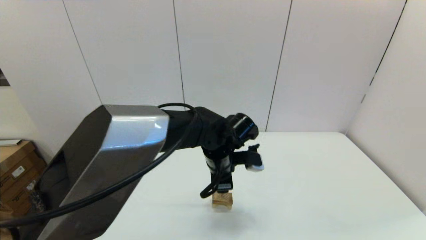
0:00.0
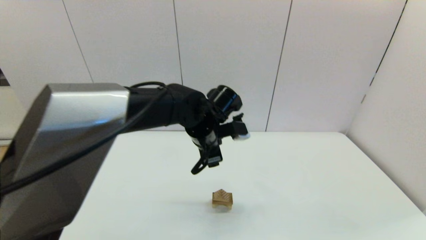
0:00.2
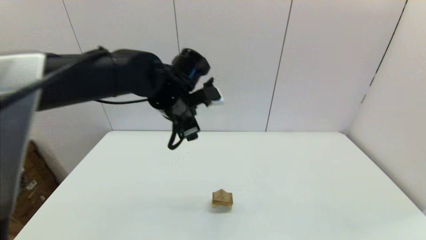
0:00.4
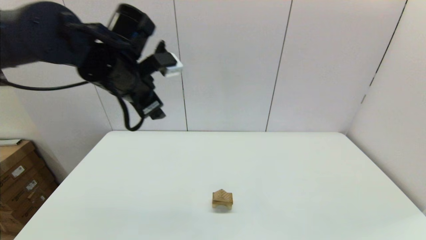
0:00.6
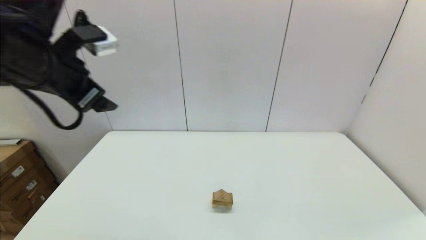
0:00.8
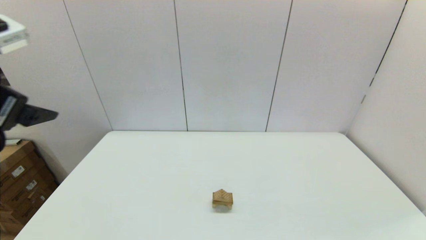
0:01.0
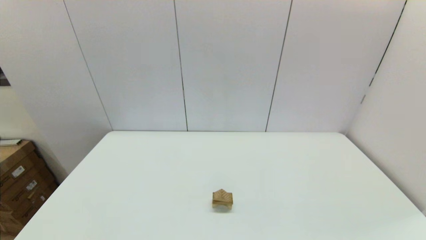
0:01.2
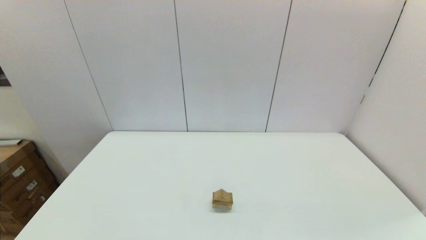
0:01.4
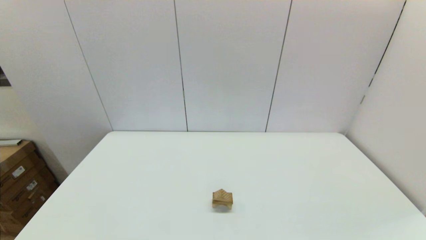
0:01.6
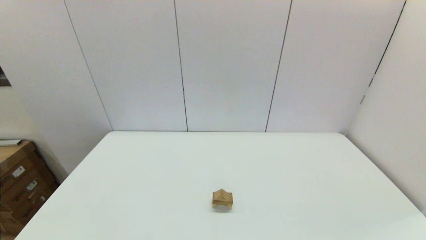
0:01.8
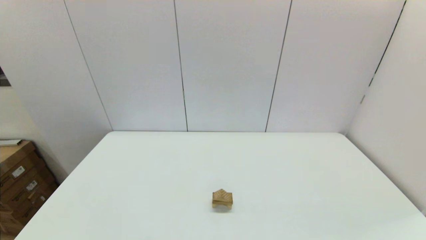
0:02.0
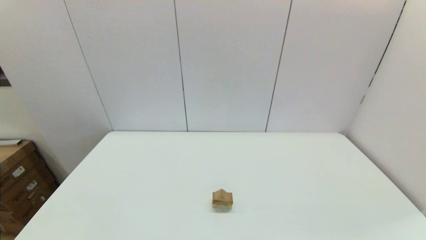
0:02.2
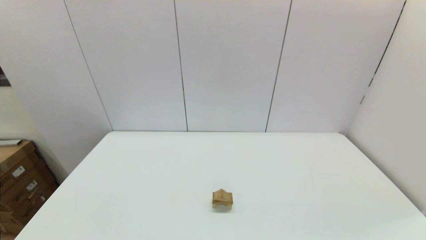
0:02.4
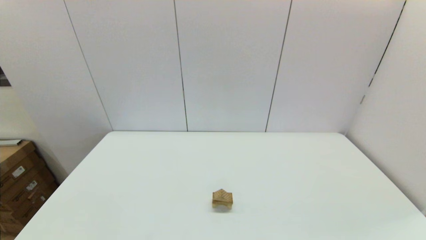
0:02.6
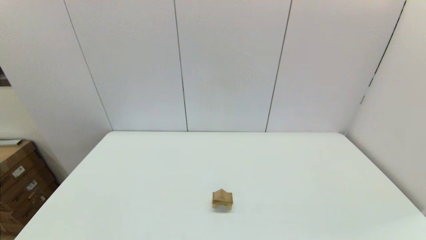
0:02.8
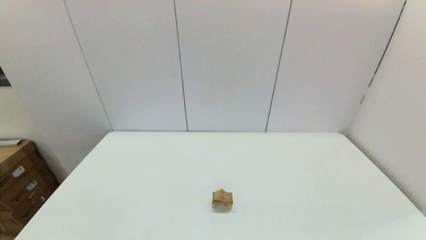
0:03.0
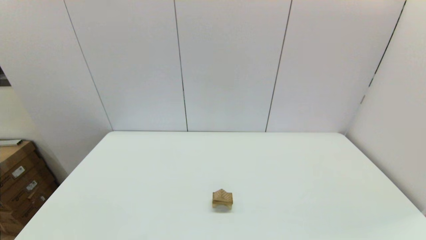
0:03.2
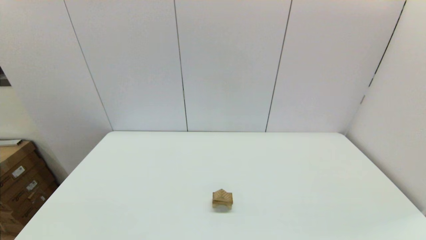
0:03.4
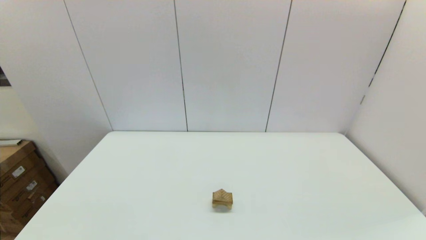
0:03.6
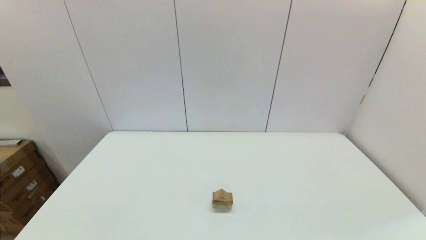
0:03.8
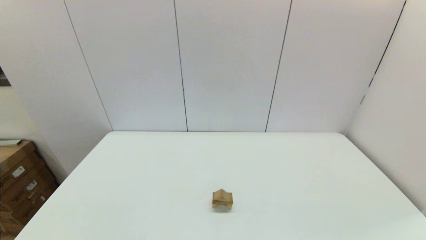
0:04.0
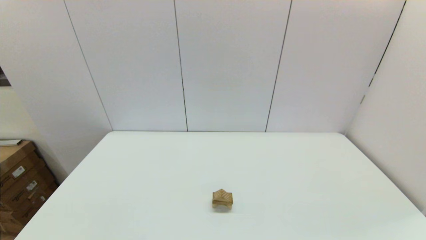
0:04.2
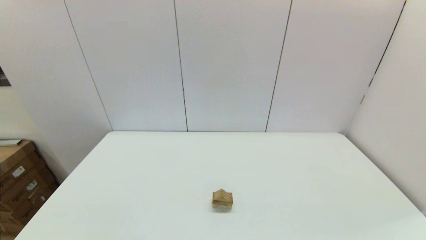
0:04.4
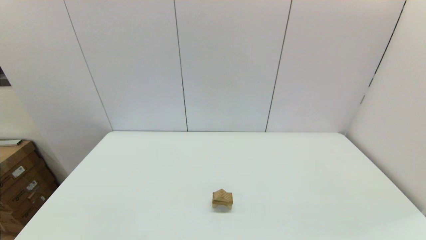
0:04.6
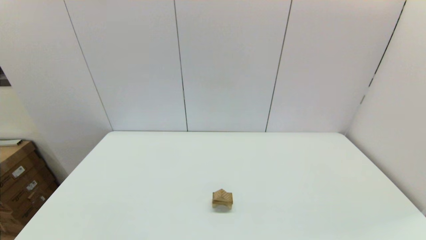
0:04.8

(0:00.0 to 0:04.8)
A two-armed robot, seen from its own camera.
Task of the whole recording: place the arched building blocks in the center of the table, set up the rectangular building blocks, and then set up the triangular building blocks.
0:00.0 - 0:01.6: The left gripper is displaced backward and to the left by some 50 cm.
0:03.2 - 0:04.8: Both grippers stay put.

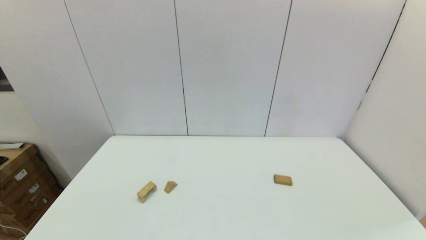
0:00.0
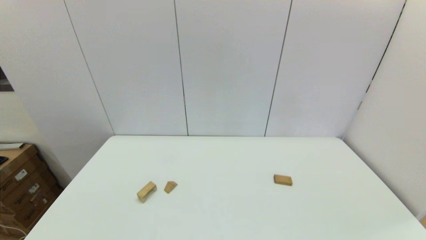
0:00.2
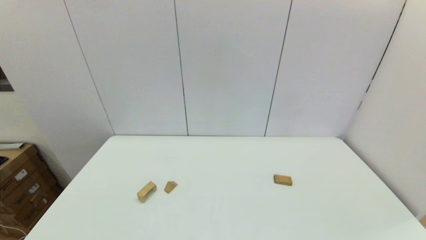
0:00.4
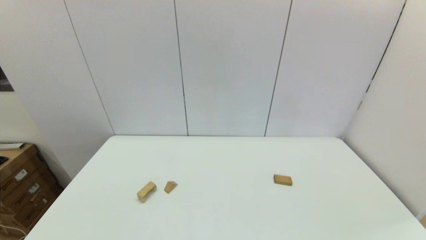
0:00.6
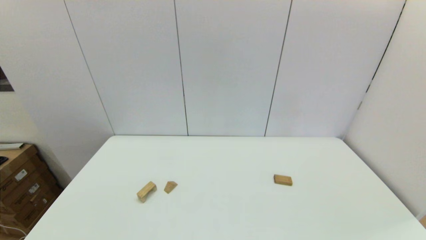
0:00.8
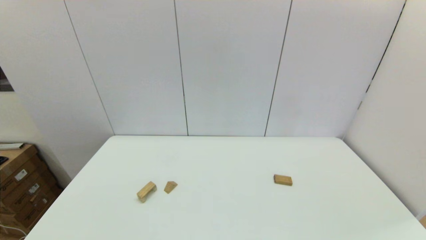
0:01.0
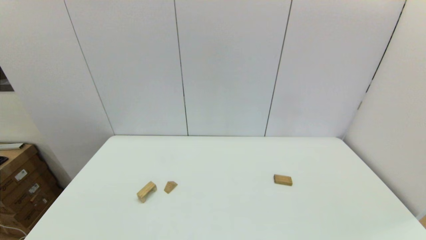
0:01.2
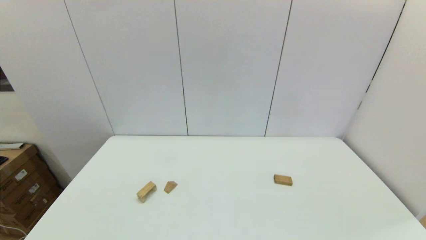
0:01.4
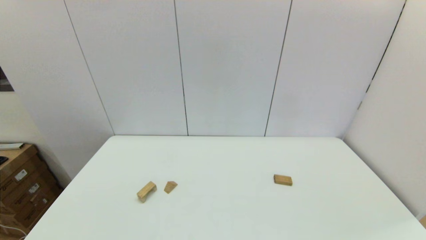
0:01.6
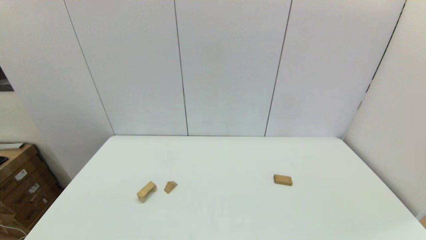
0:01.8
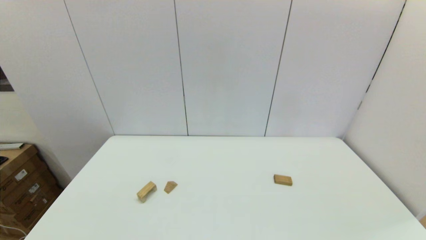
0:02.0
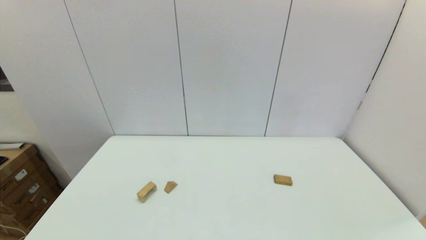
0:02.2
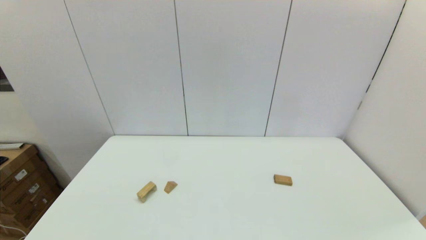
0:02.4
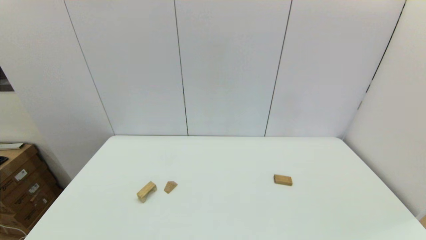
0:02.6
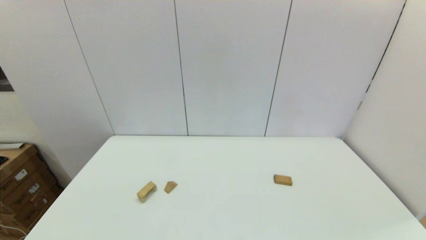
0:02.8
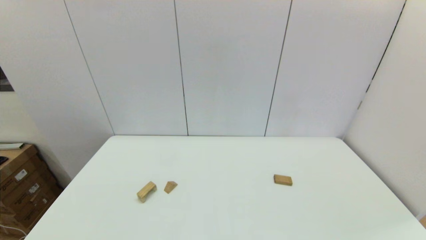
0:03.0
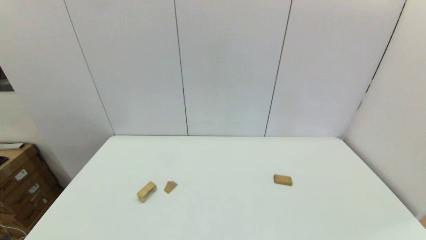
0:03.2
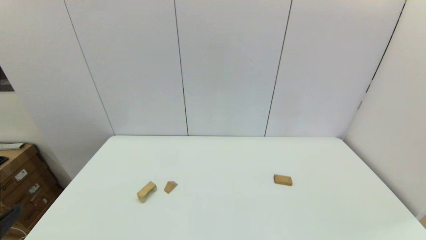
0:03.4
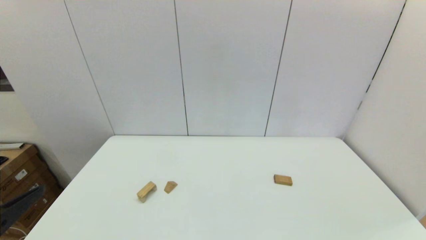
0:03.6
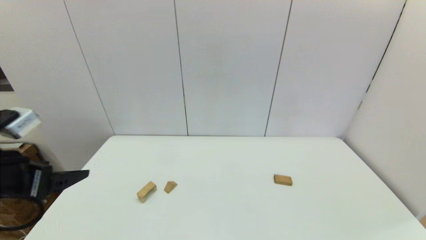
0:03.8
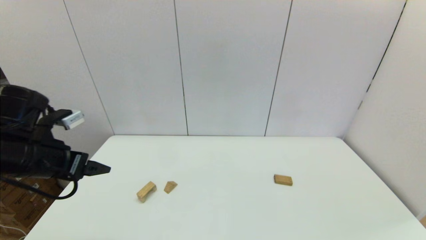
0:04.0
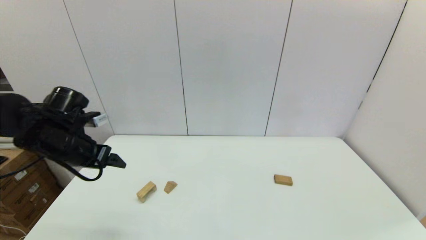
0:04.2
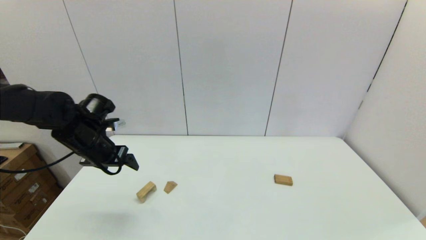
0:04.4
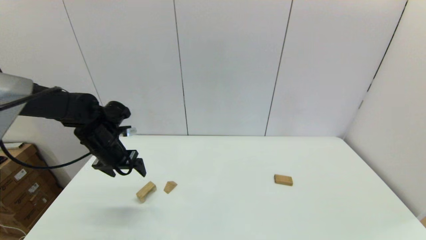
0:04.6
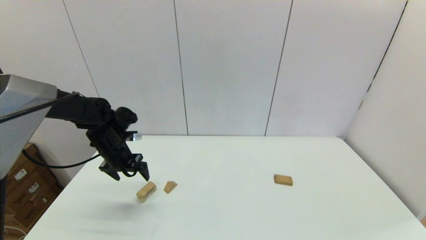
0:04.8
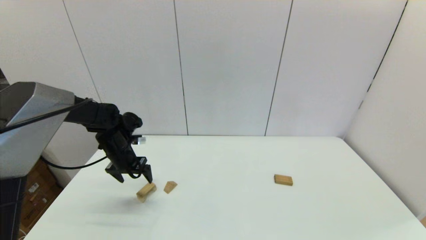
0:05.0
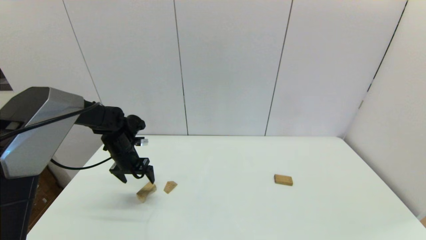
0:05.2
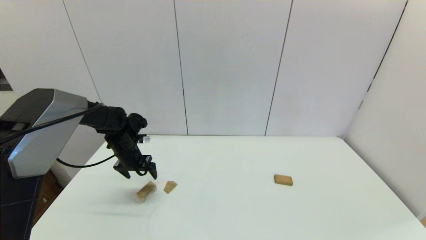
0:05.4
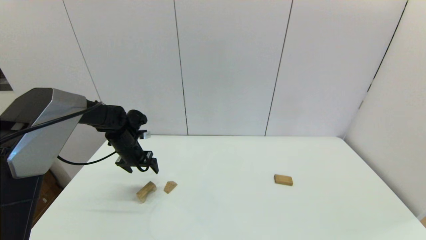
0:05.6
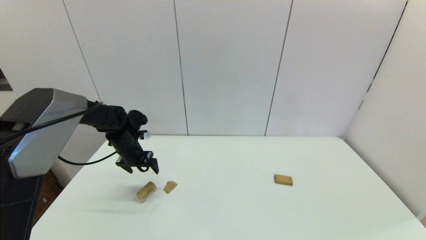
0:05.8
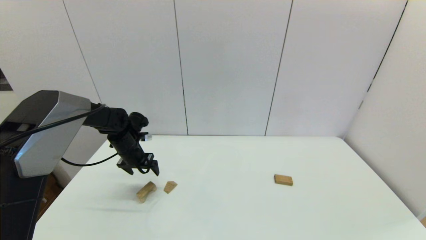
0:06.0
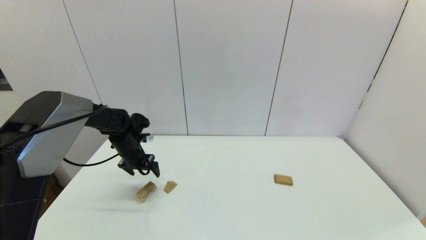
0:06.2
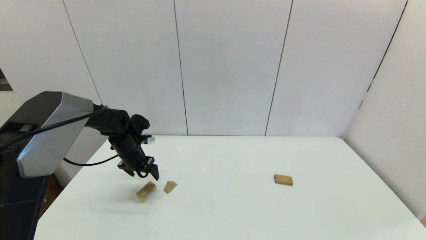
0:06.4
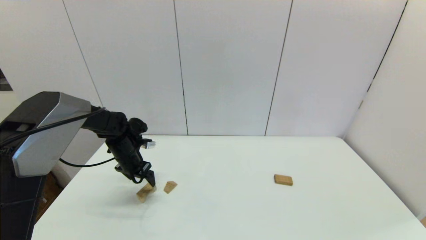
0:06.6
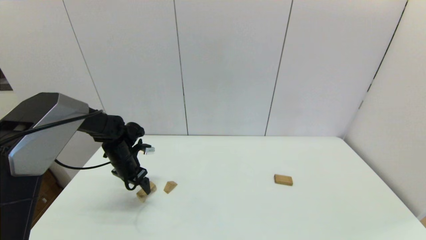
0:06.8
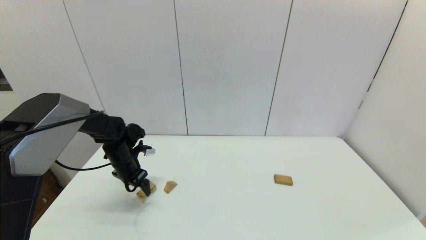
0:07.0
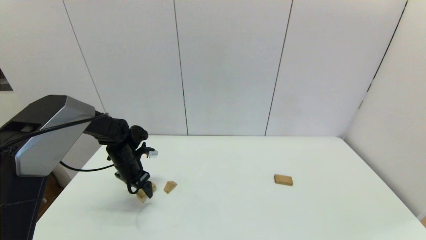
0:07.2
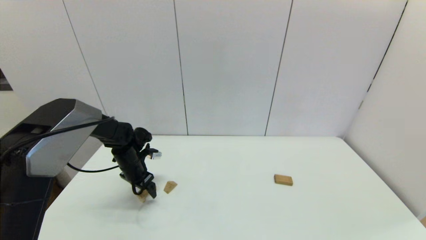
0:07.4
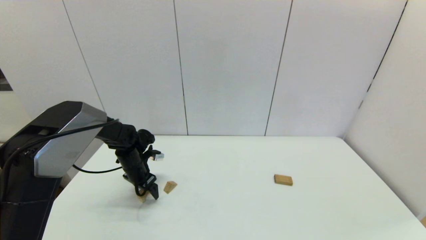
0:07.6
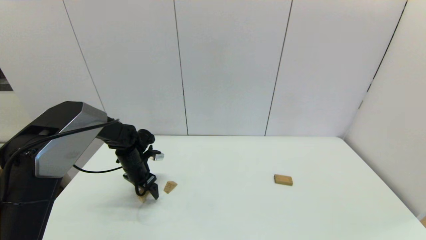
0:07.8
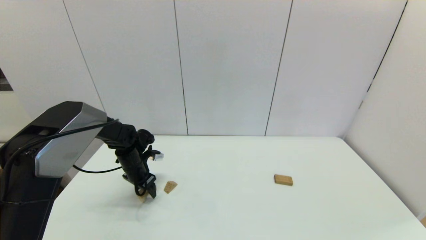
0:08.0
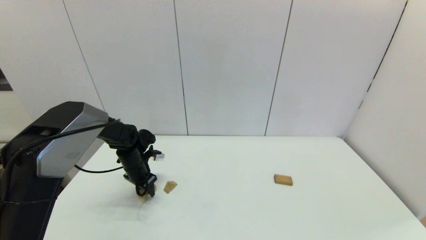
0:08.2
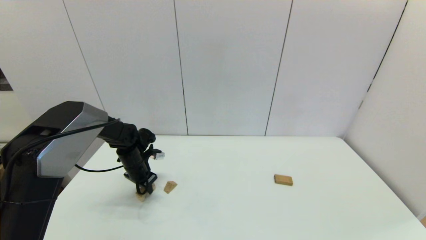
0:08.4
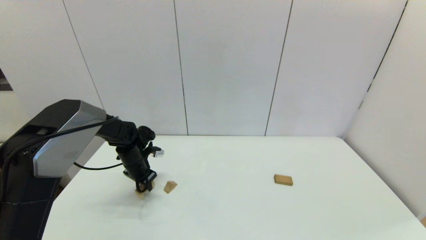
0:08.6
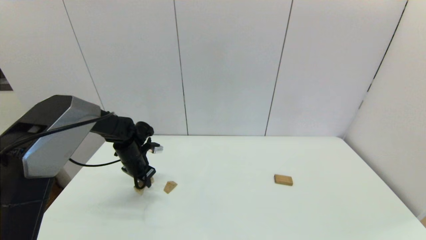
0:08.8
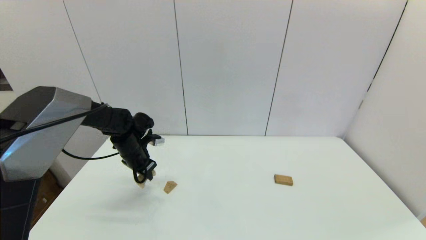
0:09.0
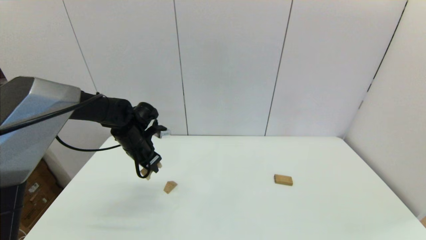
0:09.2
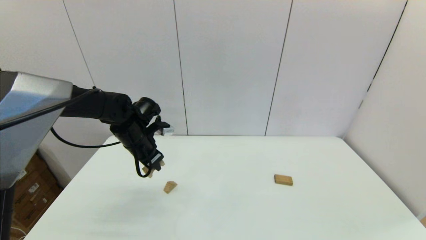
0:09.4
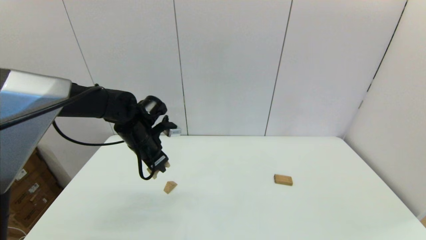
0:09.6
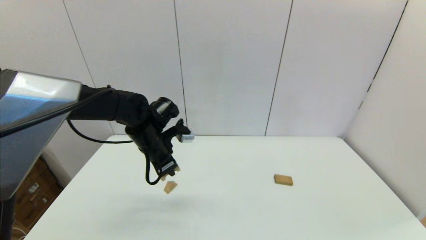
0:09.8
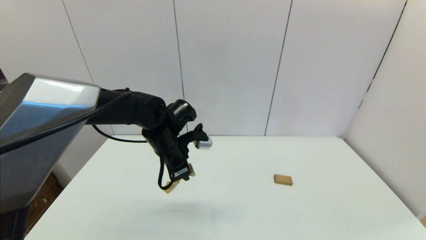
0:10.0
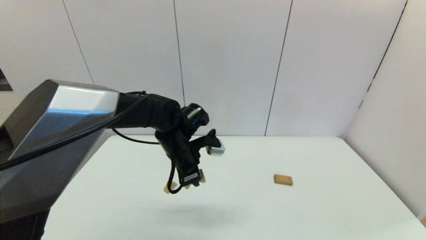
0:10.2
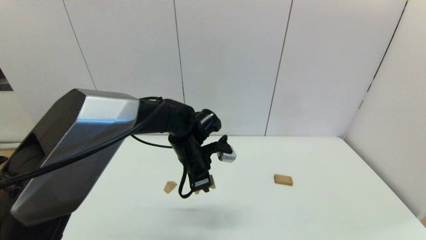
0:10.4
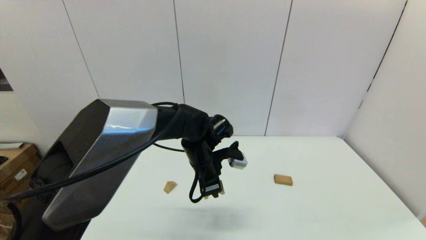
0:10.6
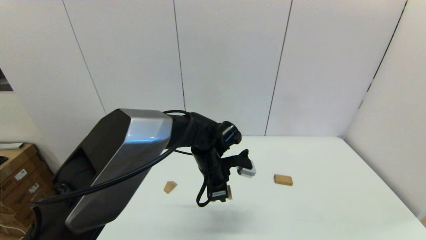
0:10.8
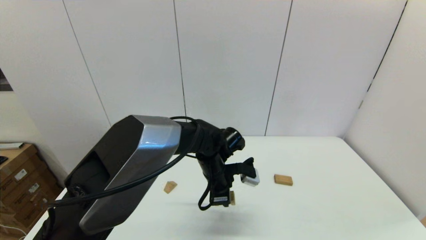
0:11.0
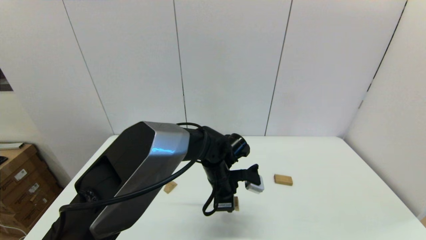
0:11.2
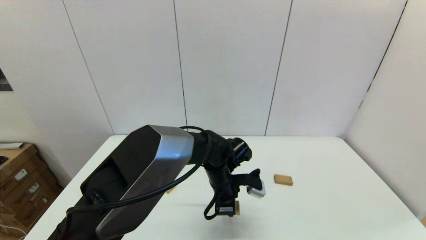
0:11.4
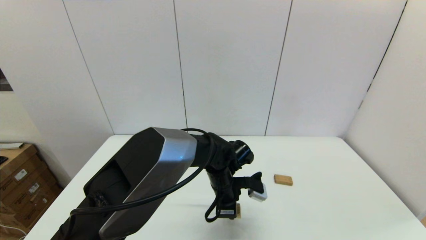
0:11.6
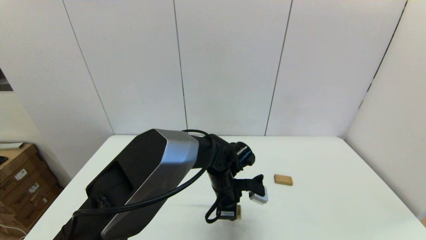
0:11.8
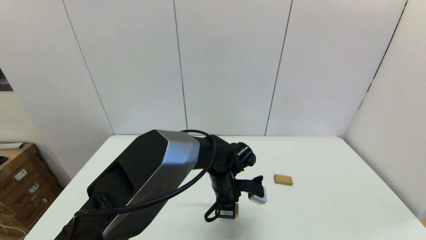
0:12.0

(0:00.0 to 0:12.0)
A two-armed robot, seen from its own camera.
Task of the whole recording: place the arched building blocks in the center of the table, set up the rectangular building blocks, and then set up the triangular building blocks.
Step, 0:03.4 - 0:08.2: Grasp the arch-shaped block with the left gripper.
0:00.0 - 0:01.6: Both grippers stay put.
0:03.0 - 0:04.4: The left gripper shifts approximately 35 cm forward.
0:04.4 - 0:06.0: The left gripper goes some 15 cm downward and forward.
0:06.0 - 0:07.6: The left gripper travels downward by approximately 5 cm.
0:07.6 - 0:09.0: The left gripper moves upward, roughly 5 cm, and closes up.
0:09.0 - 0:10.4: The left gripper goes about 20 cm to the right.
0:10.4 - 0:12.0: The left gripper is displaced downward and to the right by approximately 10 cm.
